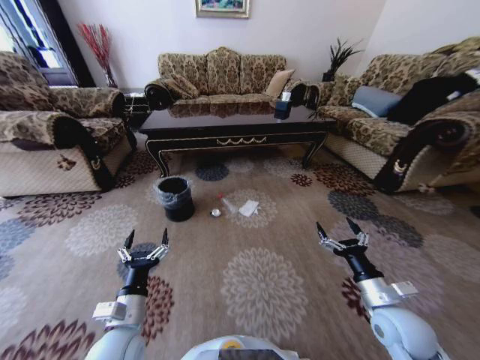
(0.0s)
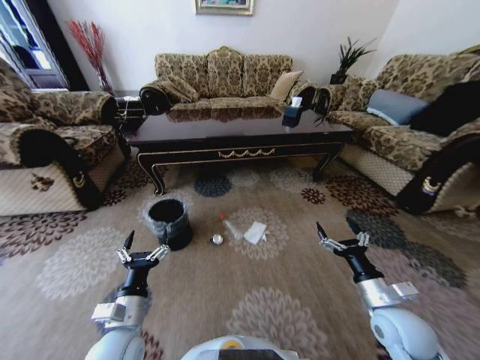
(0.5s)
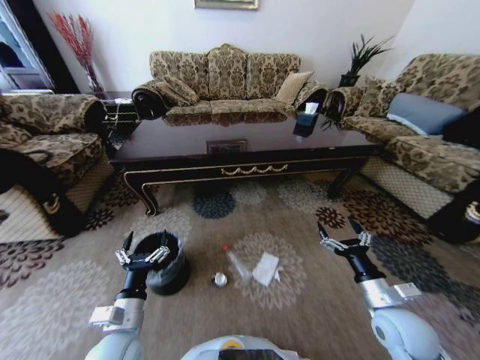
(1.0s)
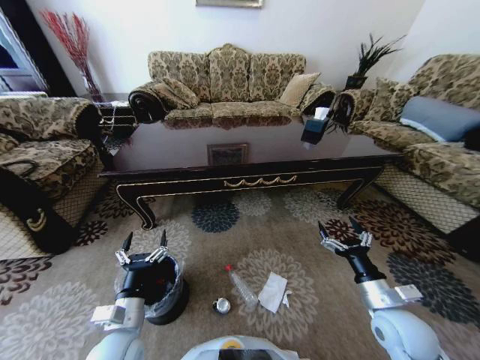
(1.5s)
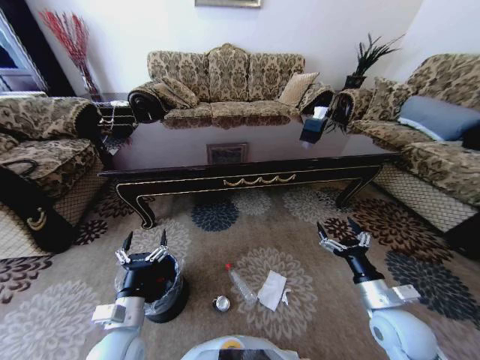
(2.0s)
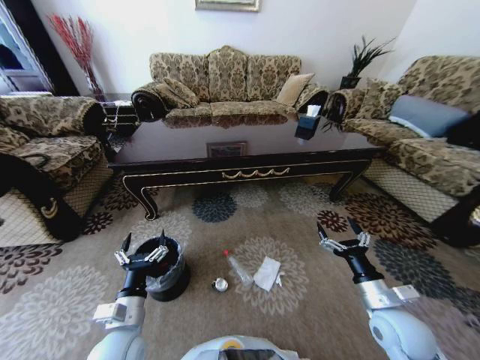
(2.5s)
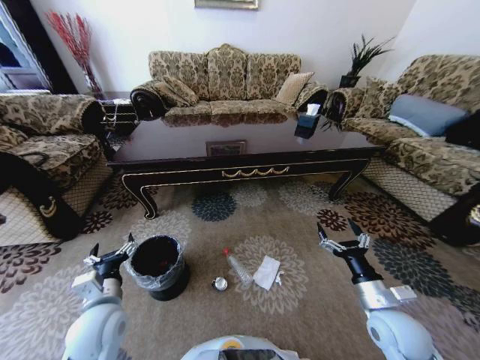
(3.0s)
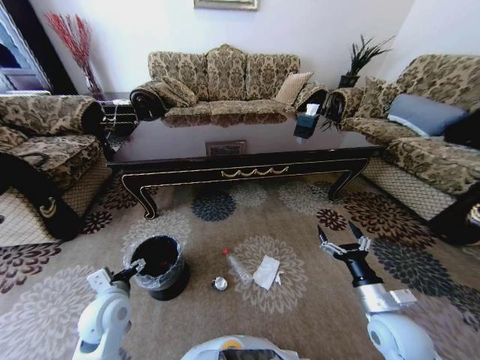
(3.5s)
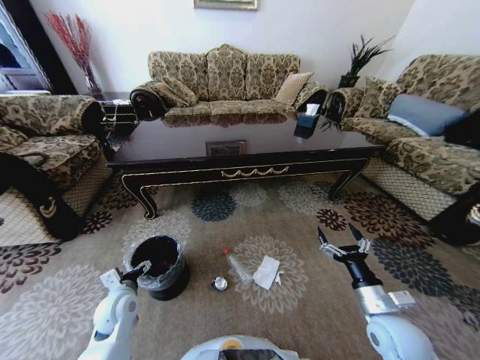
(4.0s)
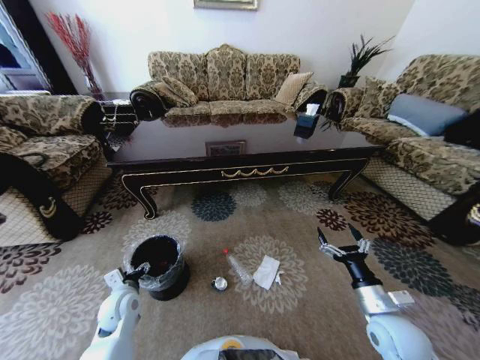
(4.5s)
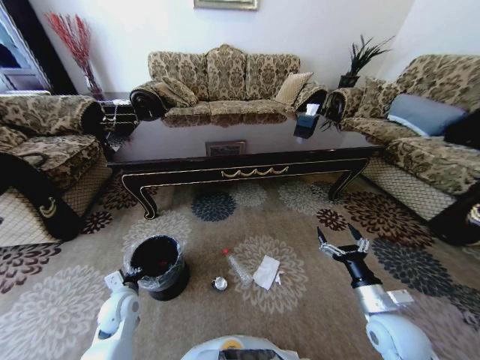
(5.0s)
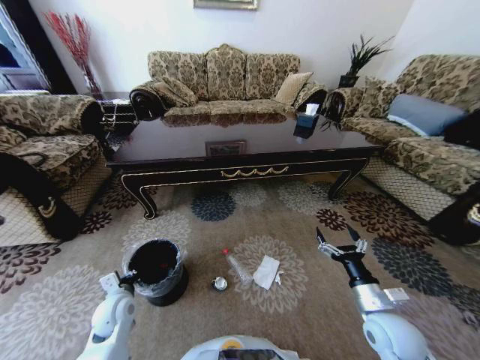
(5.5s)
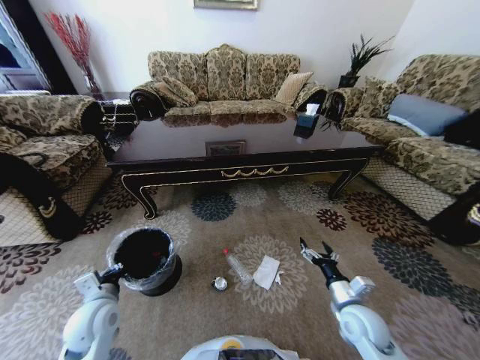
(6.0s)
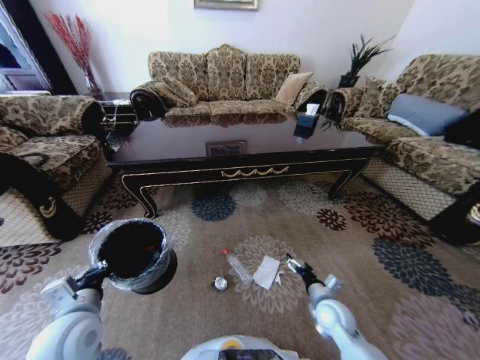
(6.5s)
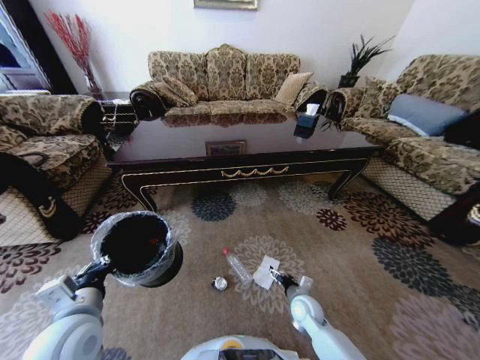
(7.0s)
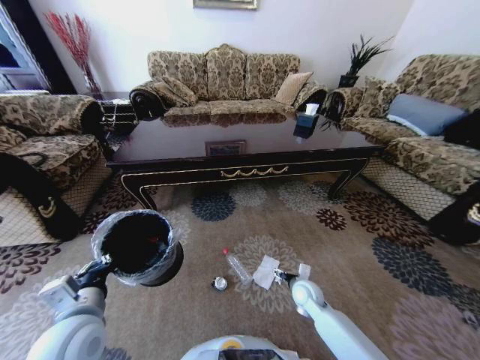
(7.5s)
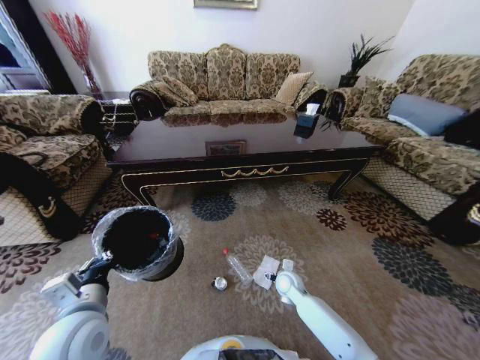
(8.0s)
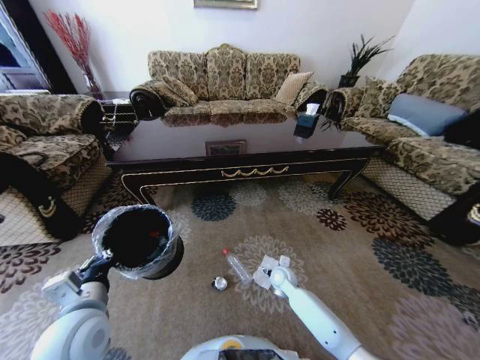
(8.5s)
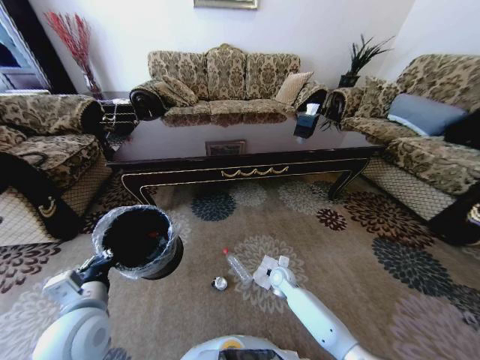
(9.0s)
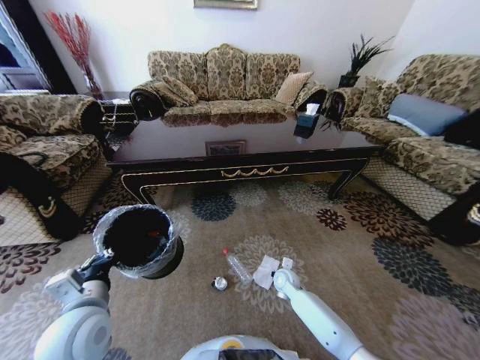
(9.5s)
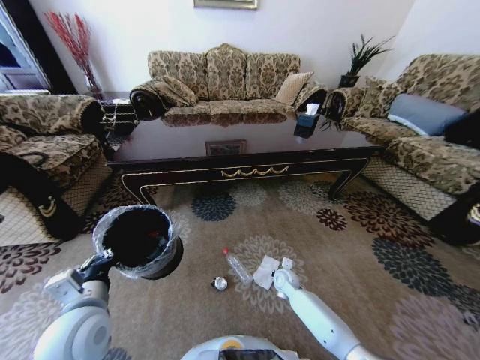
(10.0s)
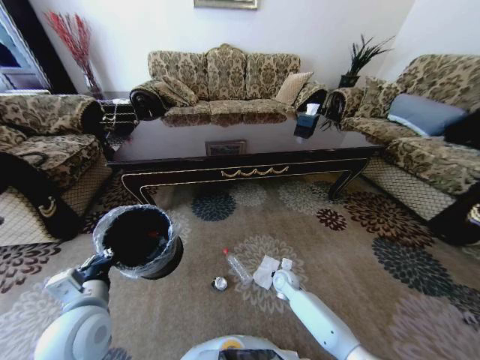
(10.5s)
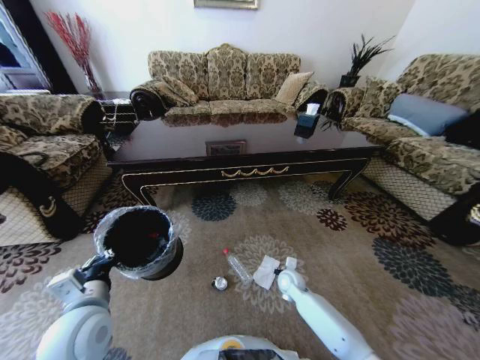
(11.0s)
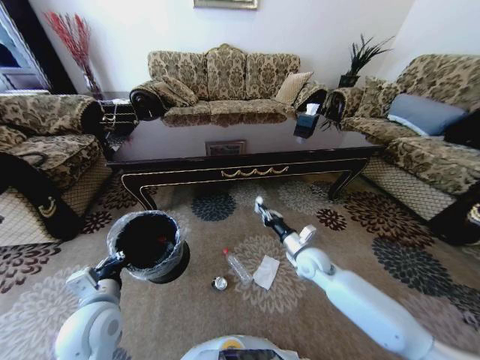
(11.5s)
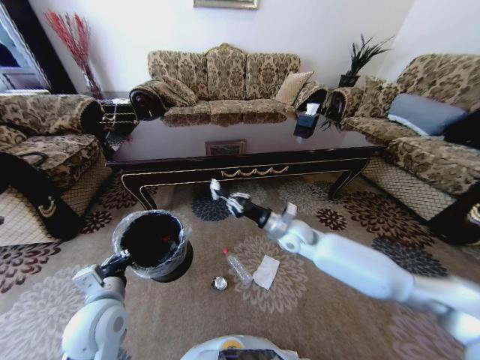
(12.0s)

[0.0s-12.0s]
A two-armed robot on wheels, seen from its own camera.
Task of the whole recording: Move to the front of the table and pick up the trash from the floor, then place it into the trash bin.
2.0s to 4.0s: The left gripper is displaced forward and to the left by about 10 cm.
4.0s to 6.0s: The right gripper changes place by approximately 5 cm. The left gripper moves some 5 cm, and closes its fingers.
6.0s to 8.0s: The left gripper heads upward, covering about 10 cm, while the right gripper travels forward, to the left and downward by about 20 cm.
8.0s to 10.0s: The right gripper closes its fingers.
10.0s to 12.0s: The right gripper heads upward, covering some 25 cm.

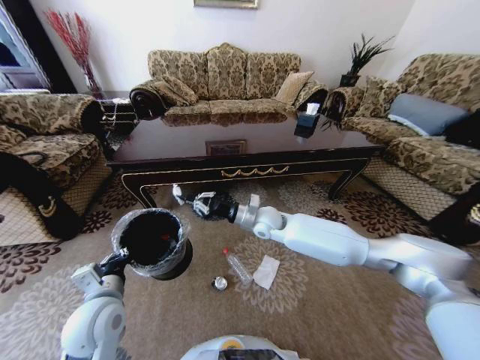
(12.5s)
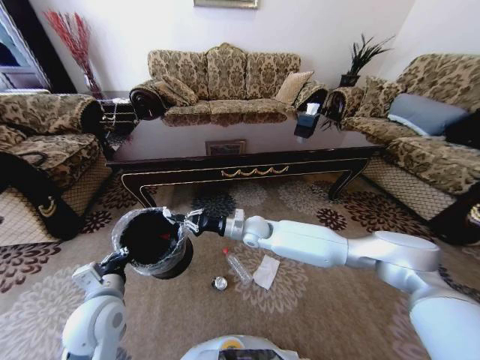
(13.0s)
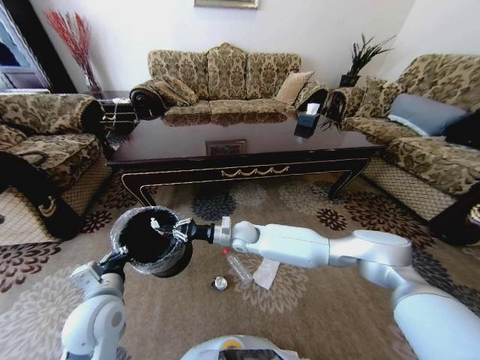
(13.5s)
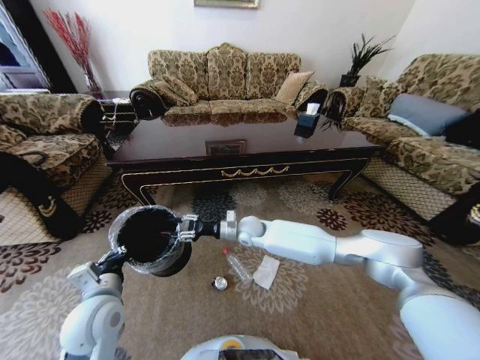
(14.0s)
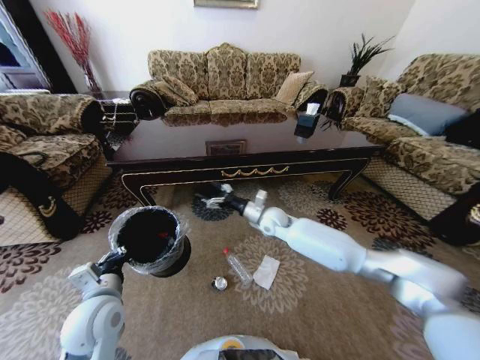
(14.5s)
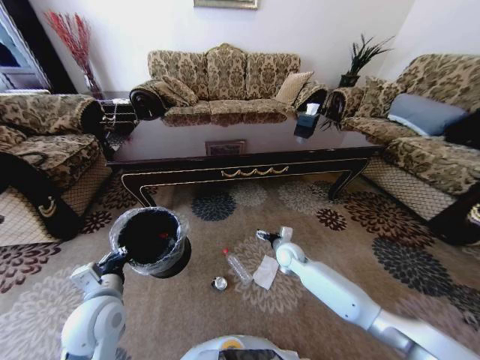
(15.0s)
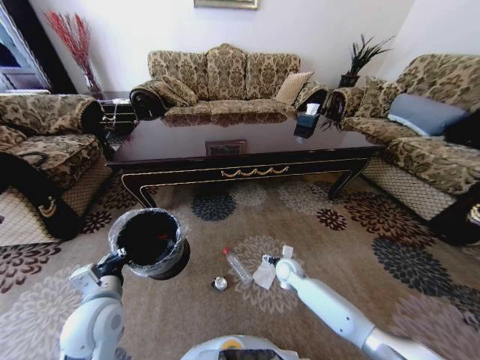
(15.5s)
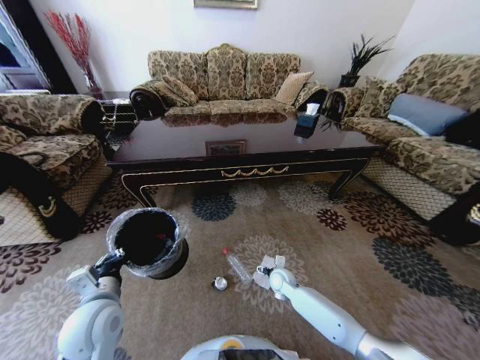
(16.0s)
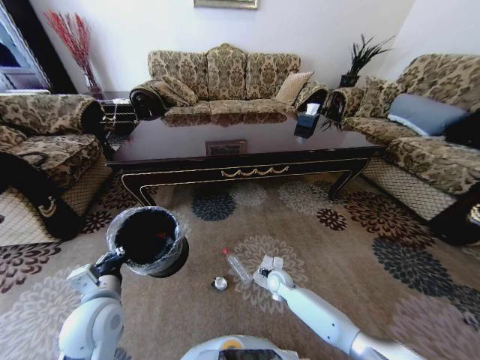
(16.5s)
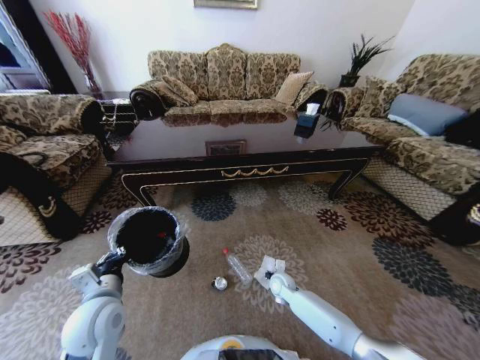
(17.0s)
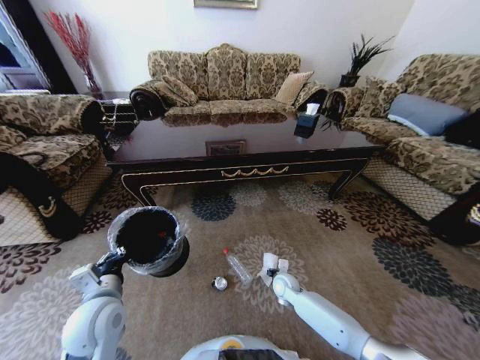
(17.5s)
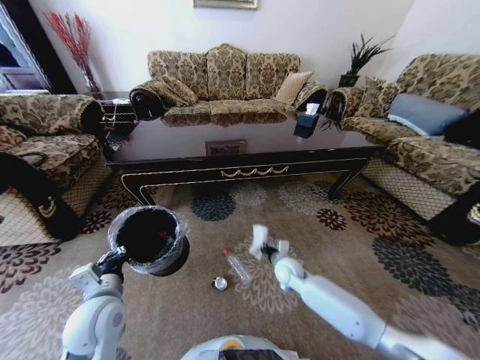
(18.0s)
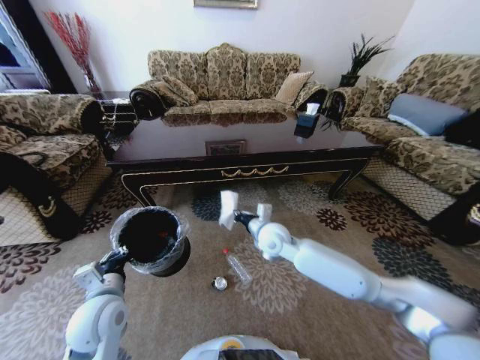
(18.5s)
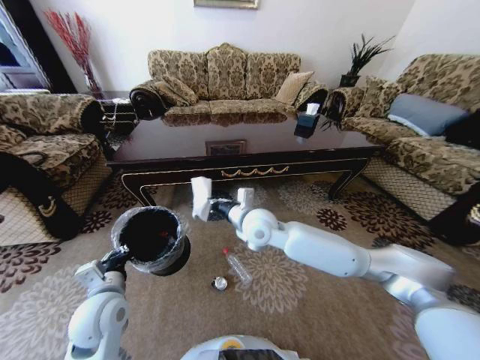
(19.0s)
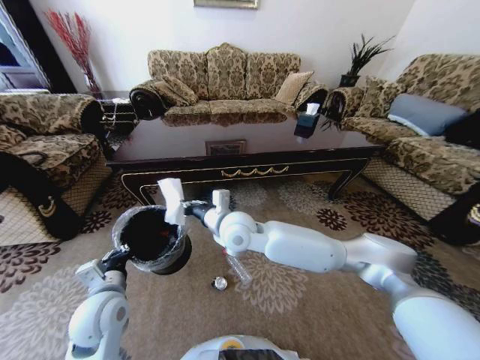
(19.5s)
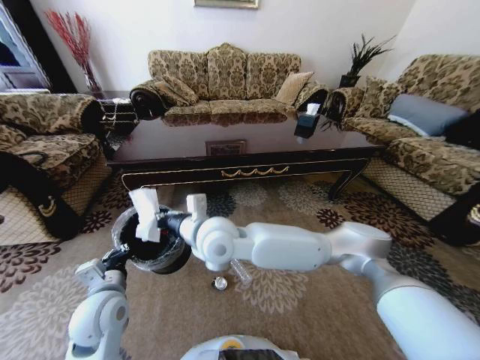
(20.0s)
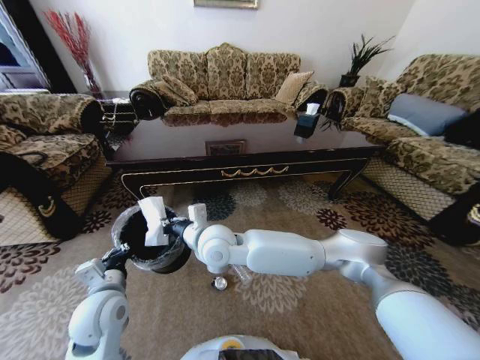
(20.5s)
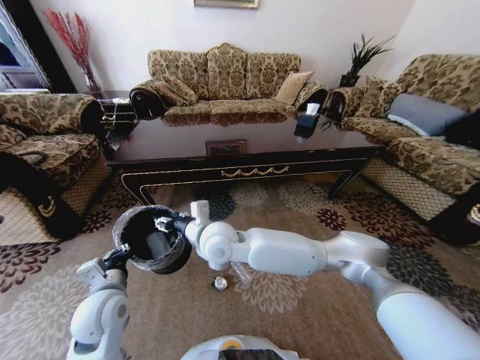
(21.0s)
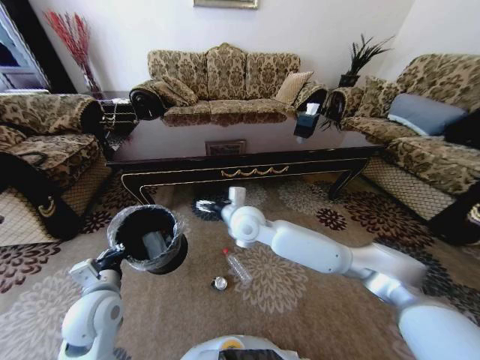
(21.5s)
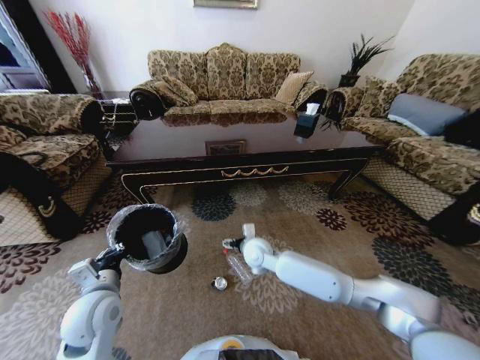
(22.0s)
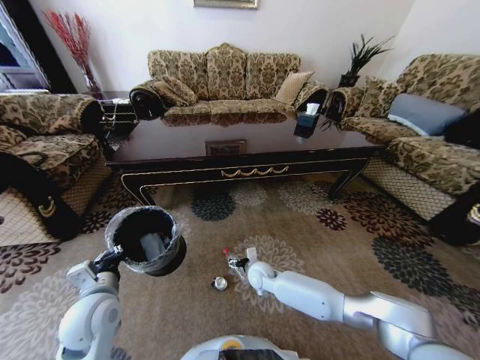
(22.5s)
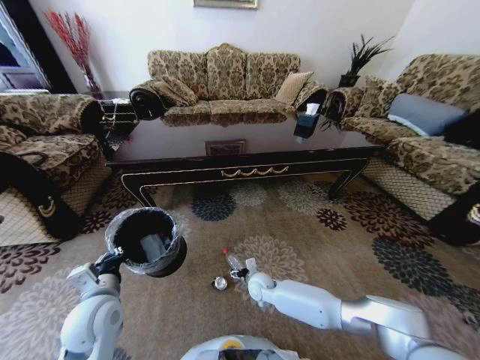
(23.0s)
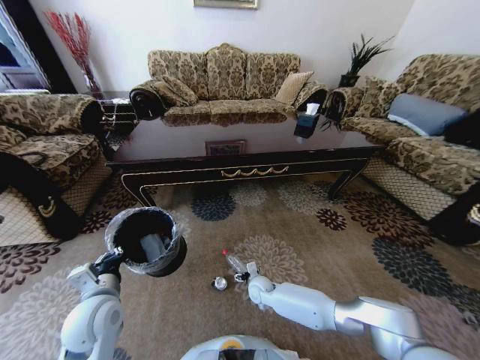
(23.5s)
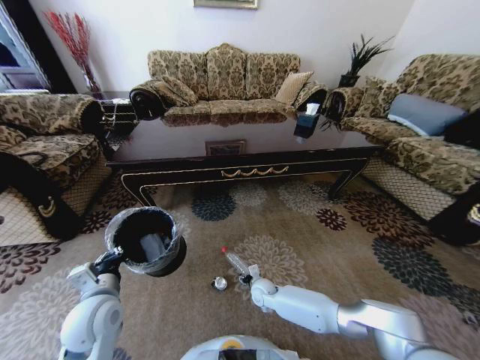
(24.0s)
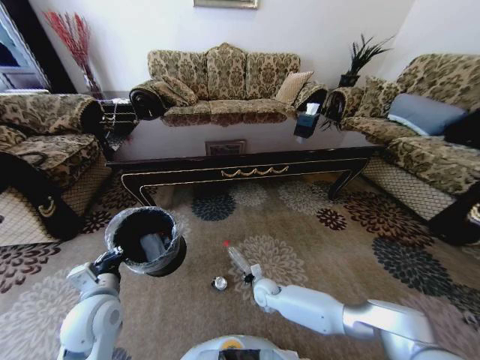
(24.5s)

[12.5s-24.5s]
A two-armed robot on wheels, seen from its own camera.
Task of the whole recording: Move to the front of the table and pick up the trash from the floor, then place it into the trash bin.
12.5s to 14.5s: The right gripper shifts by some 5 cm, and opens.
14.5s to 16.5s: The right gripper shifts approximately 25 cm downward and backward.
16.5s to 18.5s: The right gripper is displaced upward by about 25 cm, and closes.
18.5s to 20.5s: The right gripper shifts approximately 20 cm to the left and upward.
20.5s to 22.5s: The right gripper travels downward and to the right by about 30 cm, and opens up.
22.5s to 24.5s: The right gripper heads downward, covering approximately 5 cm, and closes up.

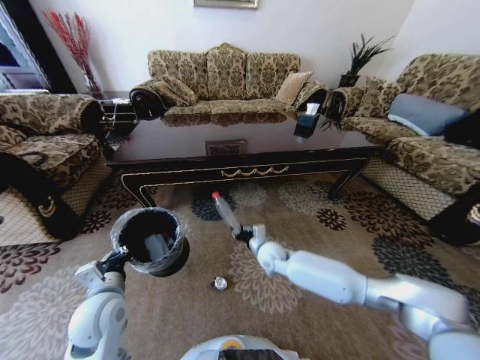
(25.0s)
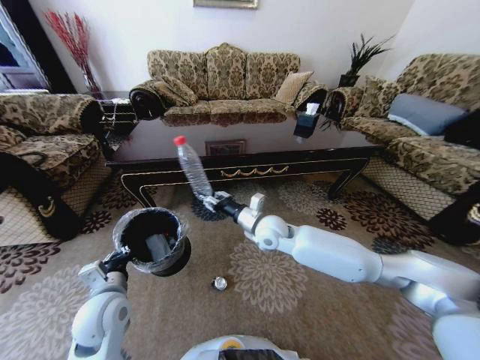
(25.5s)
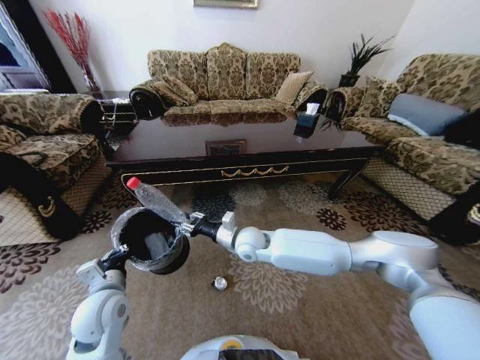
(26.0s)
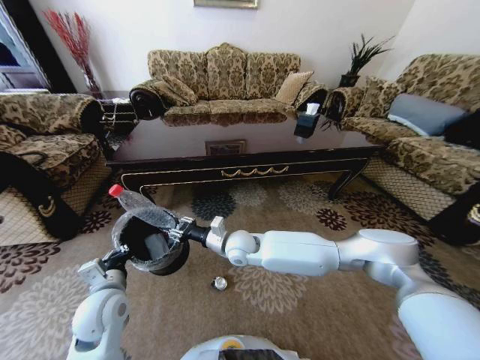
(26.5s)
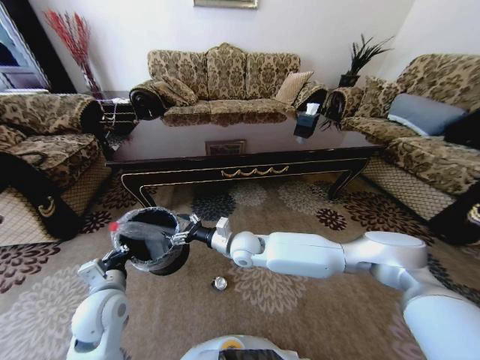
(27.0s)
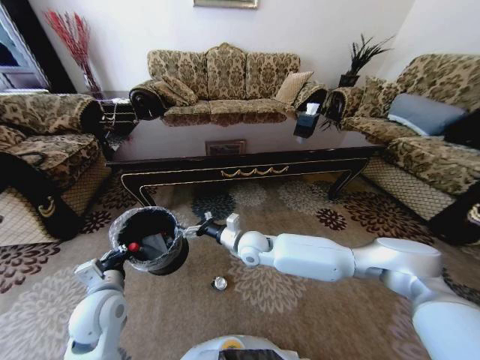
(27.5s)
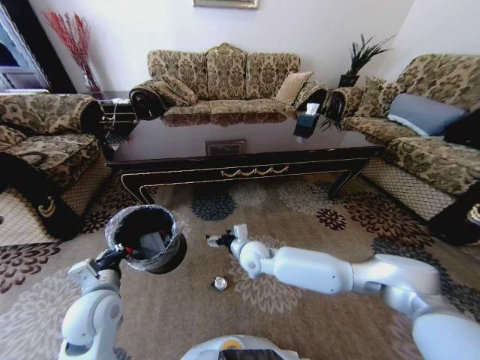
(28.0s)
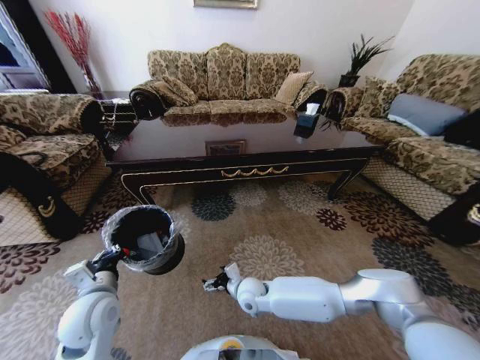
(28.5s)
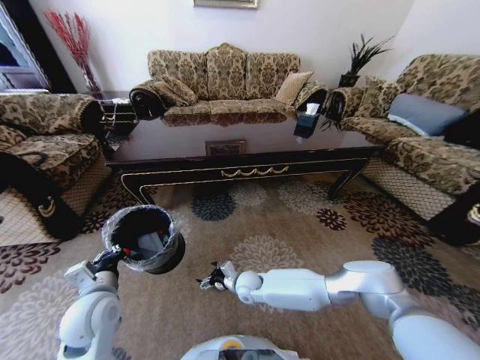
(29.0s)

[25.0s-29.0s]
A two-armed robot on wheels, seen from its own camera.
Task of the whole recording: Move to the front of the table and pick up the trash from the floor, then place it into the trash bin.
25.0s to 27.0s: The right gripper moves to the left and upward, about 15 cm, and opens its fingers.
27.0s to 29.0s: The right gripper goes some 20 cm downward.
